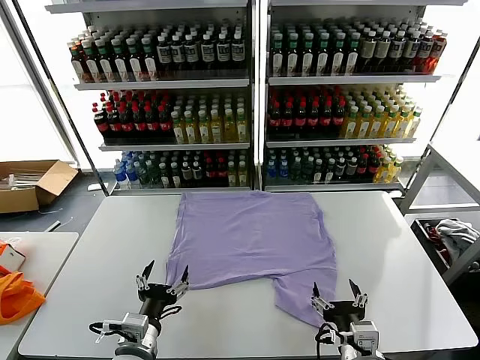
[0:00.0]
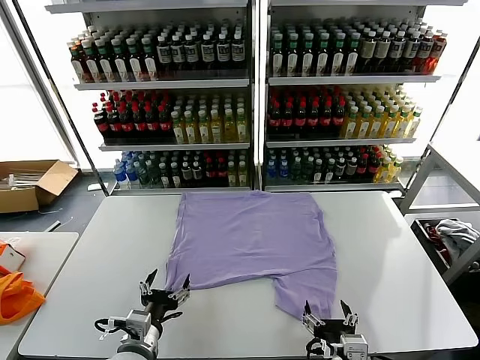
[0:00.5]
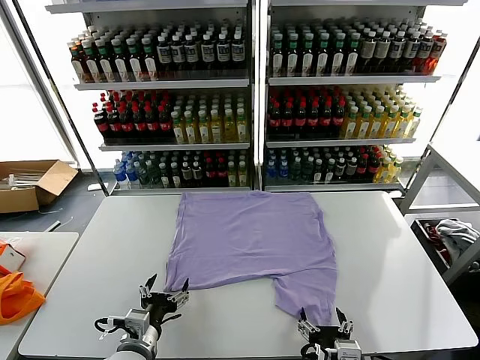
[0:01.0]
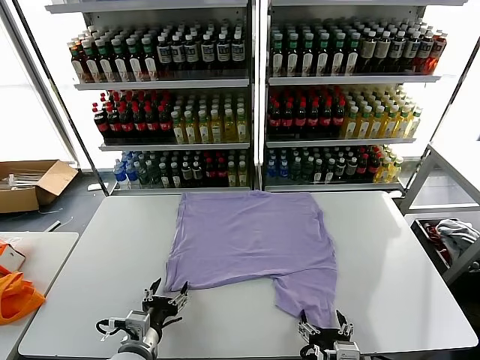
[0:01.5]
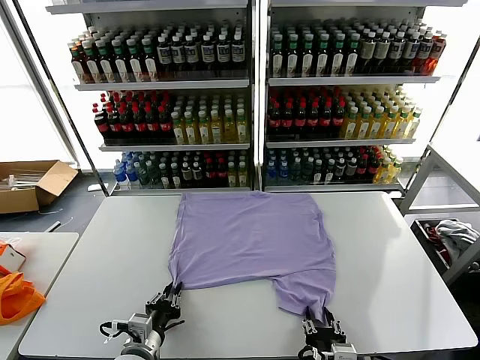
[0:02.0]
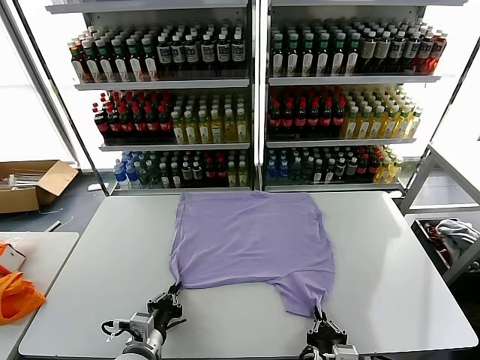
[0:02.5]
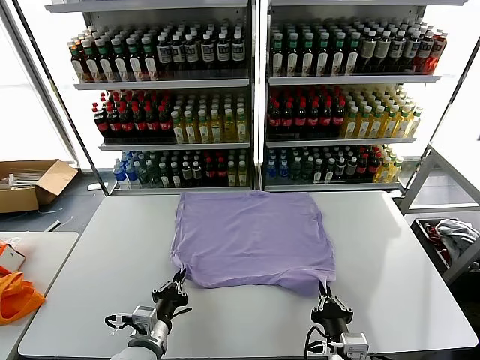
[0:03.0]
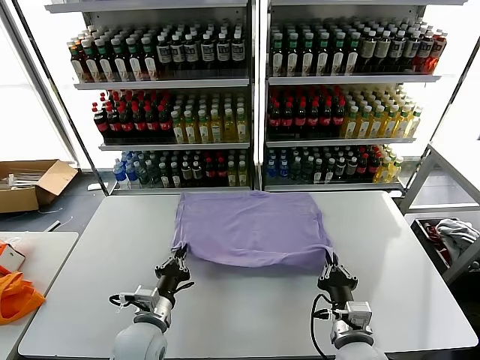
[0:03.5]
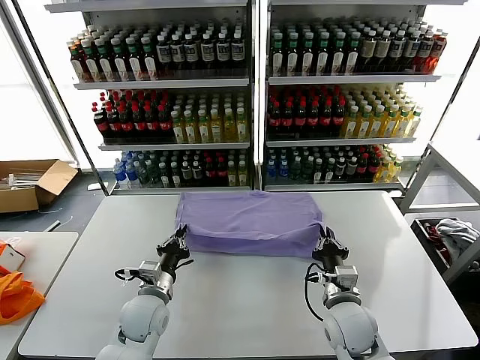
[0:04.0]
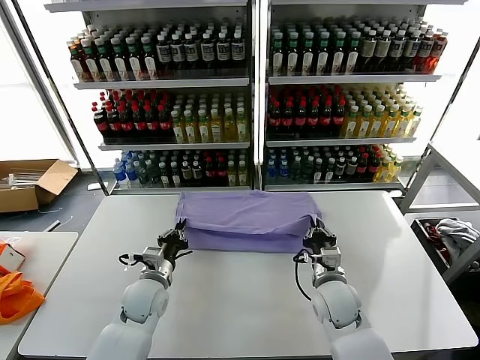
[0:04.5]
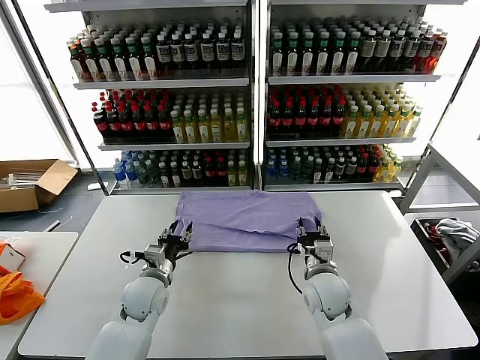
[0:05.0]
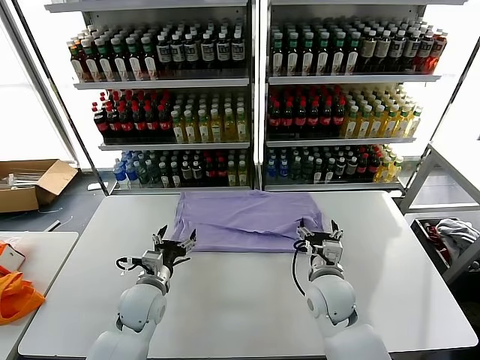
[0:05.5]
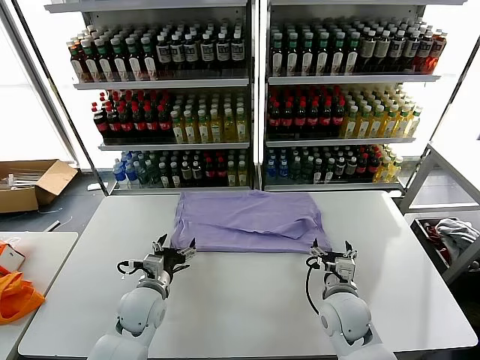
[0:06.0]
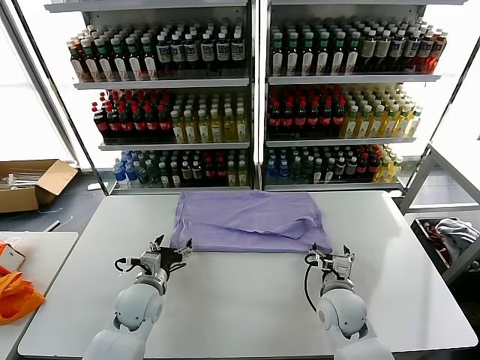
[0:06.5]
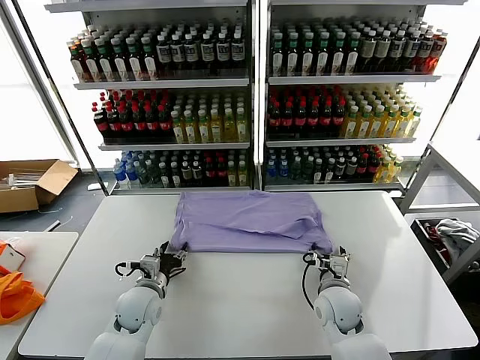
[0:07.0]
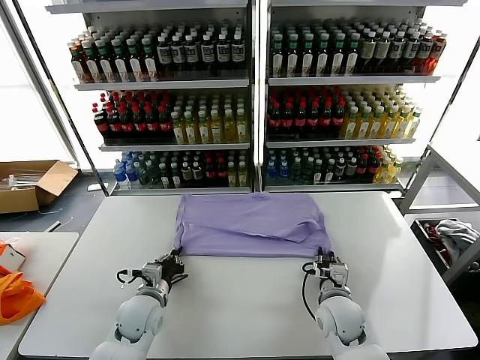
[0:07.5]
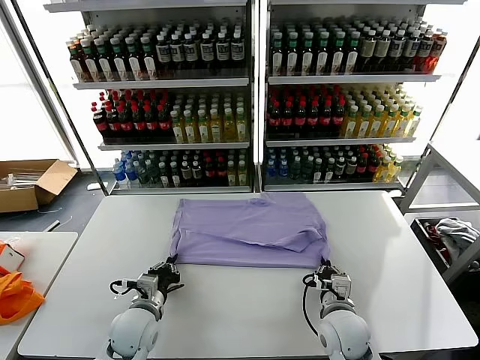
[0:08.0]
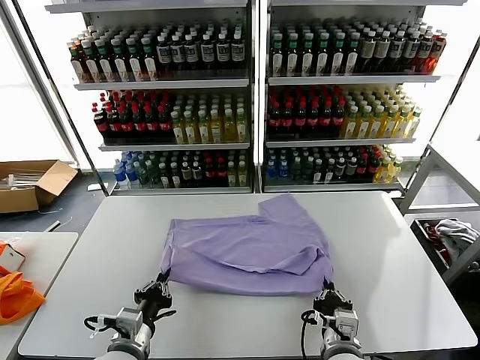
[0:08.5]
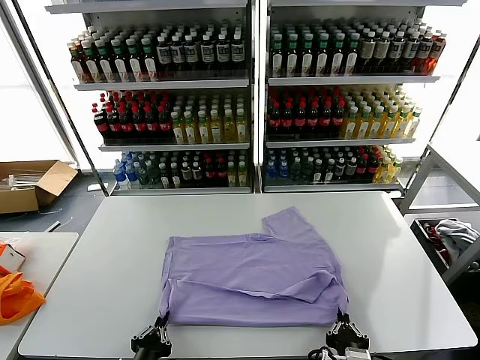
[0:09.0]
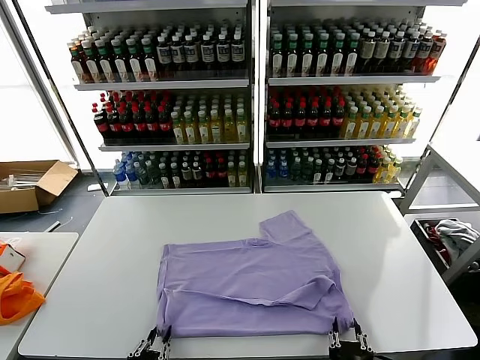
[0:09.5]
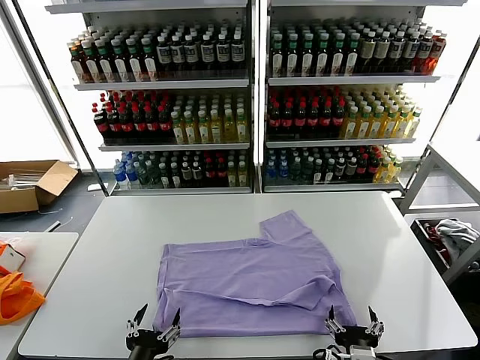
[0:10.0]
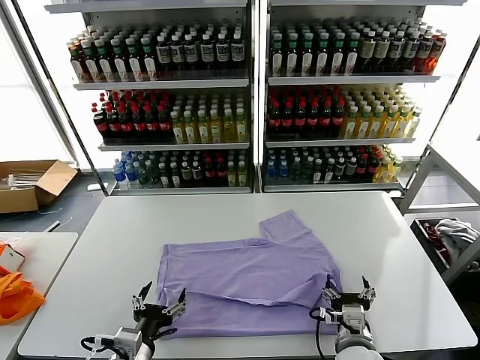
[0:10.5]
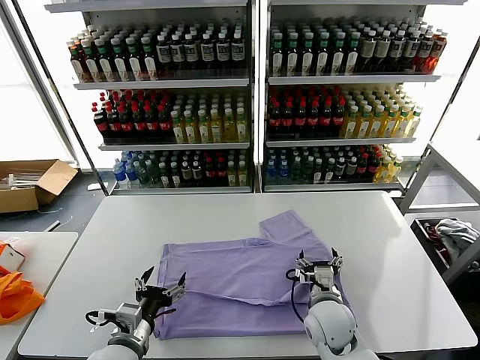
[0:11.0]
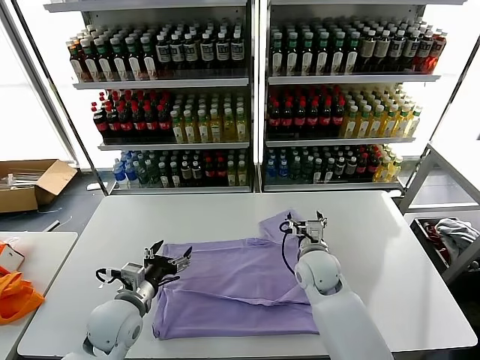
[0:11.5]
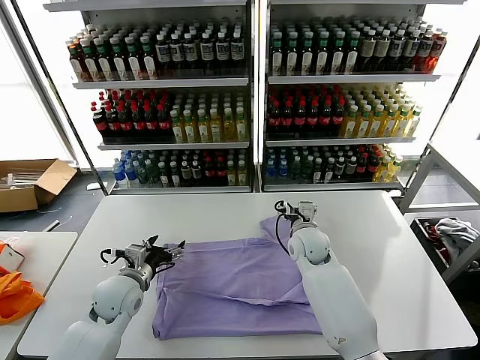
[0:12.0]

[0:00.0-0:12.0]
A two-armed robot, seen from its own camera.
Task of the whole recording: fold and organize the clothes.
Step, 0:00.0 to 0:02.5: use both grippers simultaneously to clamp the lower edge of the clothing fabric.
Step, 0:03.0 to 0:05.0: use both grippers to drag the lower edge of the fabric forward and fold it over the upper edge.
Step, 0:05.5 to 0:09.5: Drag the clothes downward with both gripper.
0:02.0 to 0:04.0: Both grippers travel together forward, roughly 15 cm. The right gripper closes.
0:04.0 to 0:06.0: The left gripper opens its fingers. The right gripper opens up.
0:06.0 to 0:08.0: The left gripper closes up. Meanwhile the right gripper closes.
0:08.0 to 0:10.0: The grippers both shift backward by some 15 cm. The right gripper opens. Meanwhile the left gripper opens its fingers.
0:10.0 to 0:12.0: The two grippers go roughly 30 cm forward.

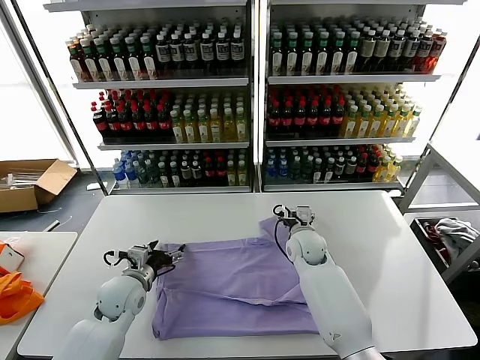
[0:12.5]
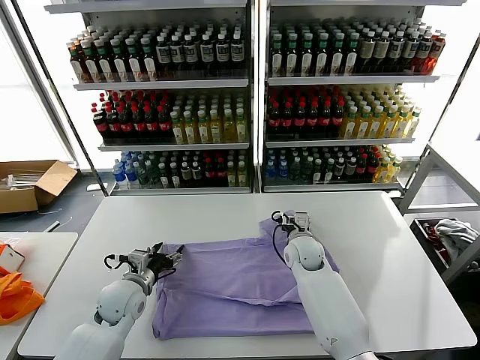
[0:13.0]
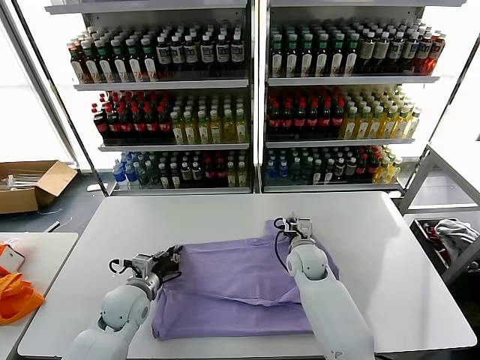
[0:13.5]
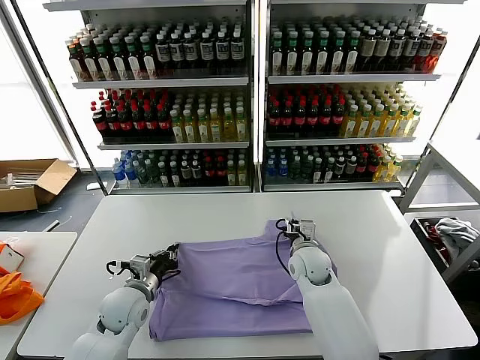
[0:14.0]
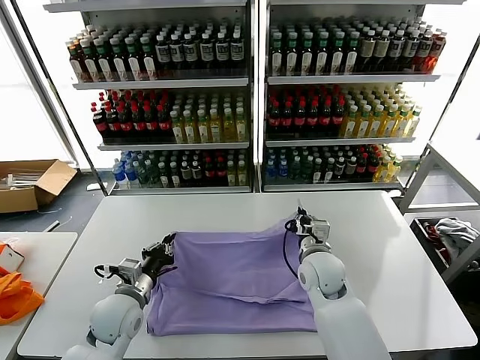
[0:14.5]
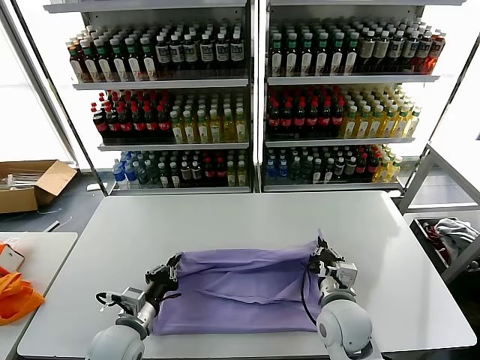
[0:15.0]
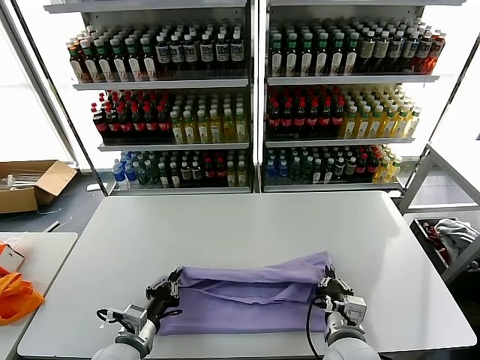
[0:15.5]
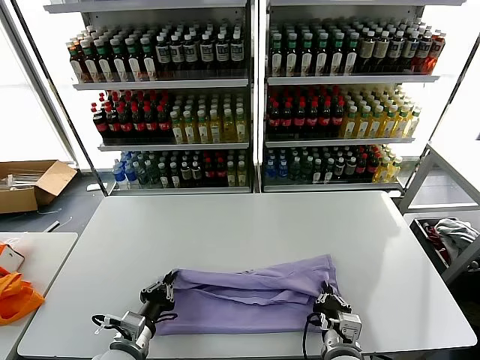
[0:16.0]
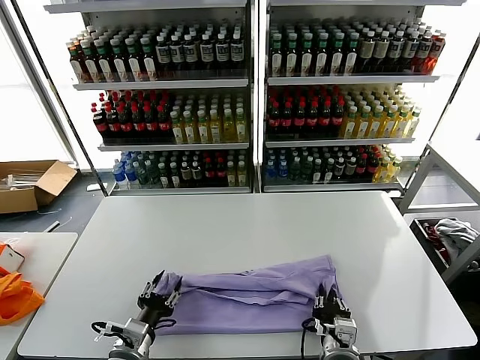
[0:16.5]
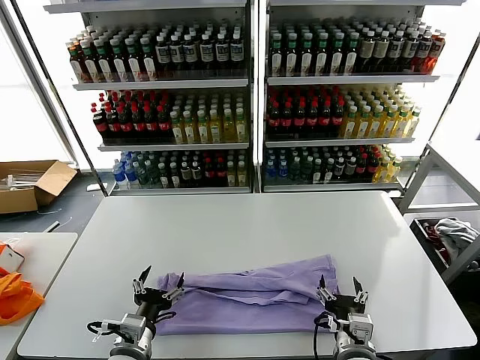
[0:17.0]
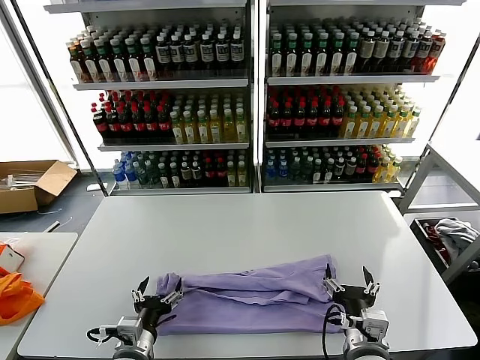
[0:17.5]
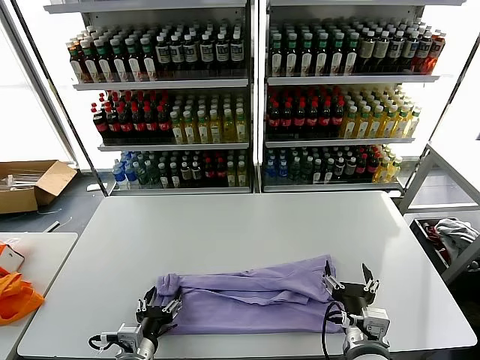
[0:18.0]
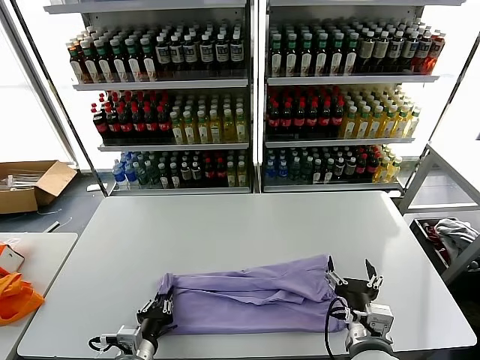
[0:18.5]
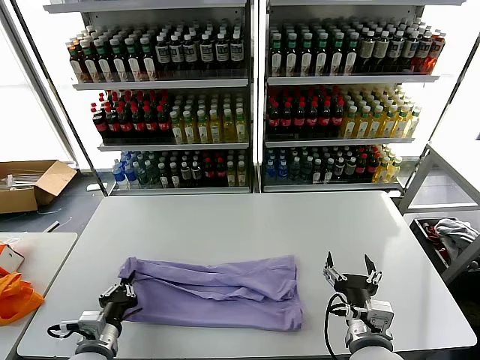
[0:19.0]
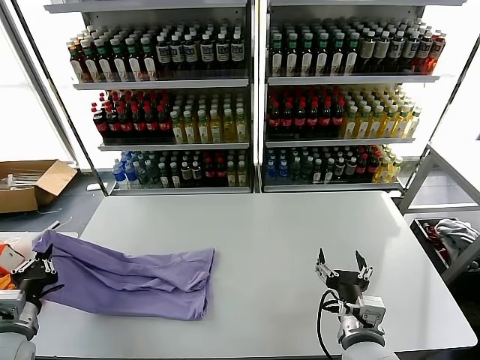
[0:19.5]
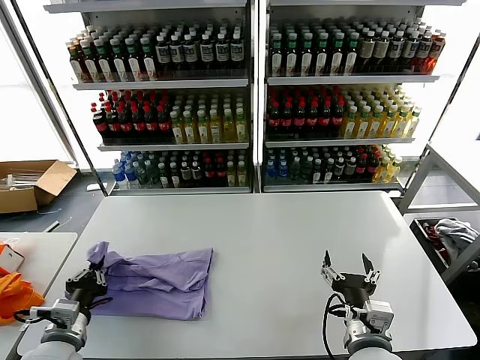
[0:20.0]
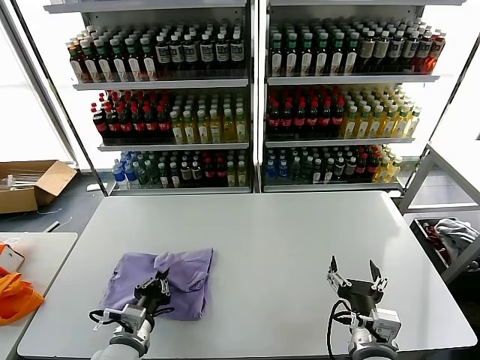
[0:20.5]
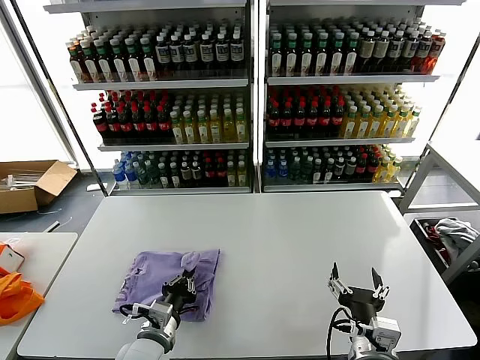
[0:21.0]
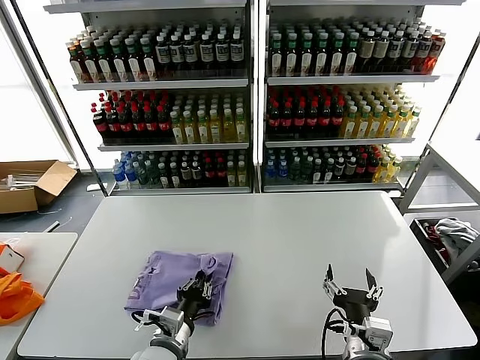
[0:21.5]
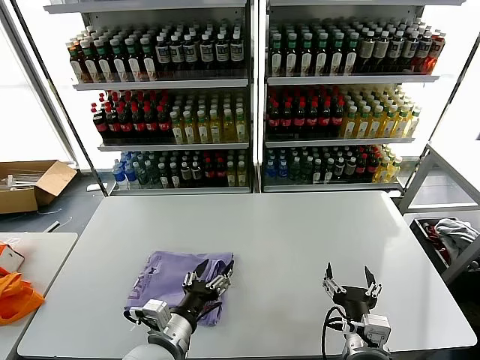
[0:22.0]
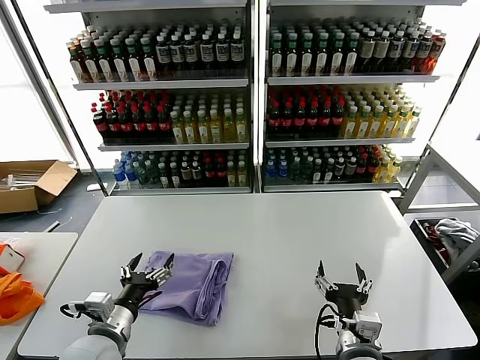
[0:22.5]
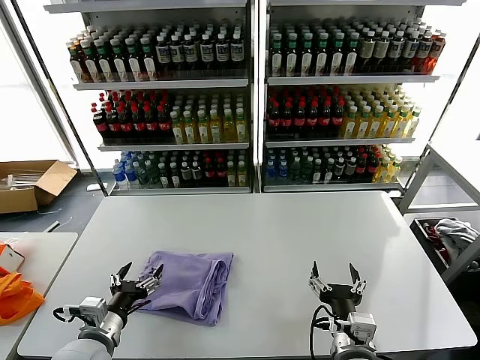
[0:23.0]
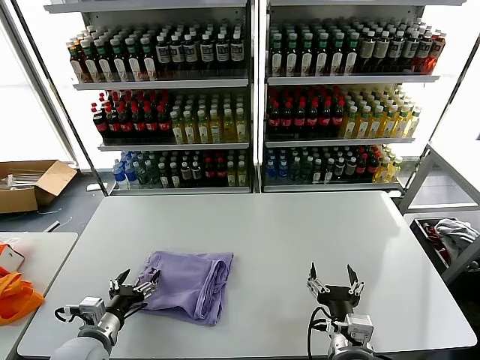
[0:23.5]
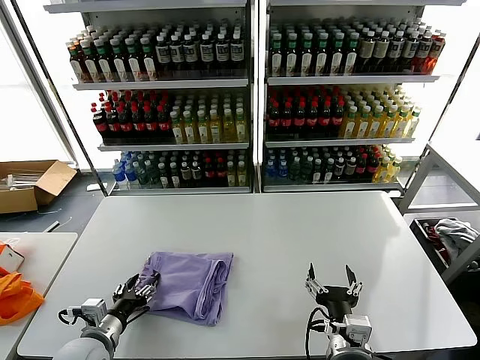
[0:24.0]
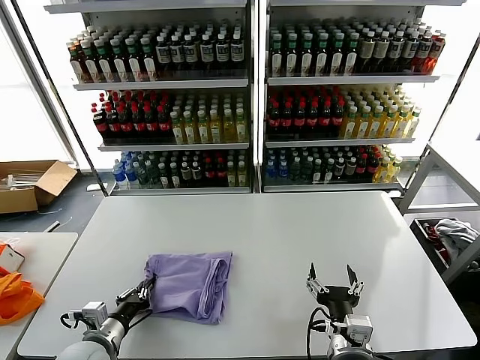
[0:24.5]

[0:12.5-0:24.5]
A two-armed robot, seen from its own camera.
Task of the whole recording: fold and organize the clothes.
Step, 0:14.5 to 0:17.0: use both grippers to drag the upper edge of the fabric backward and fold it over the lower edge.
Step, 0:17.5 to 0:18.5: use the left gripper to clamp the left edge of the fabric.
Step, 0:19.0 to 0:21.5: use the left gripper to drag the left edge of the fabric to the left and folds it over the right edge.
0:12.5 to 0:14.5: The right gripper travels backward by roughly 10 cm, and closes up. The left gripper closes up.
0:14.5 to 0:16.5: The right gripper shifts roughly 20 cm backward. The left gripper goes approximately 10 cm backward, and opens its fingers.
0:16.5 to 0:18.5: The left gripper opens, then closes once more, while the right gripper moves upward, some 5 cm, and opens up.
0:18.5 to 0:20.5: The left gripper moves approximately 20 cm to the left and comes back.
0:20.5 to 0:22.5: The left gripper moves roughly 10 cm to the right and comes back, and opens up.
0:22.5 to 0:24.5: The left gripper heads downward and to the left, covering roughly 10 cm, and closes its fingers.

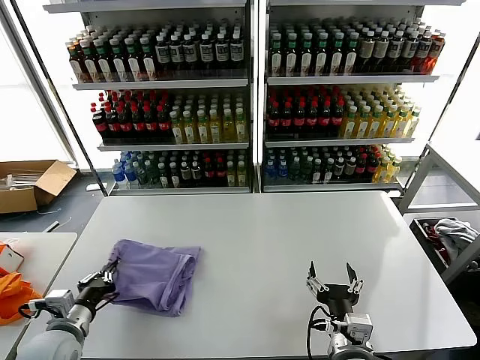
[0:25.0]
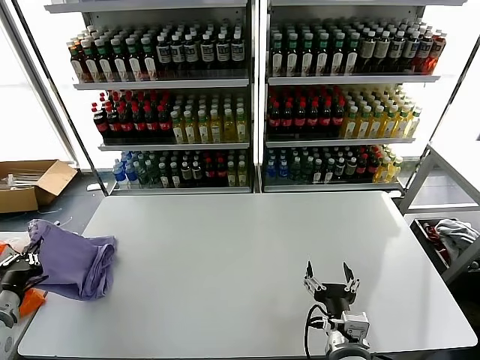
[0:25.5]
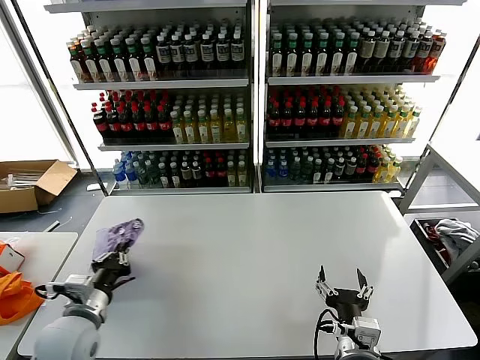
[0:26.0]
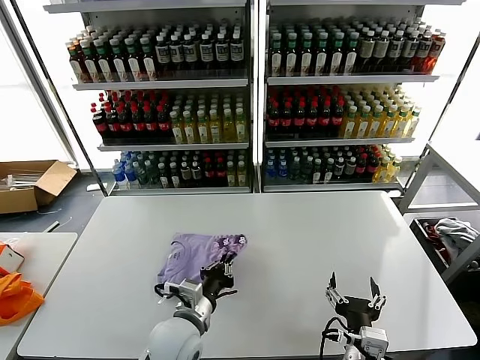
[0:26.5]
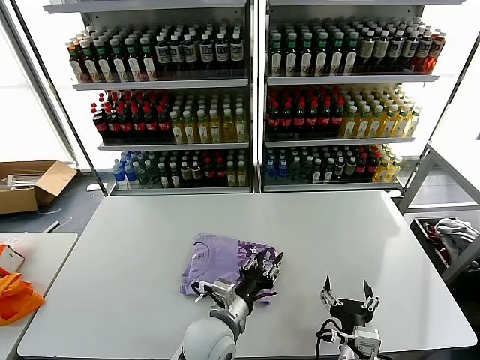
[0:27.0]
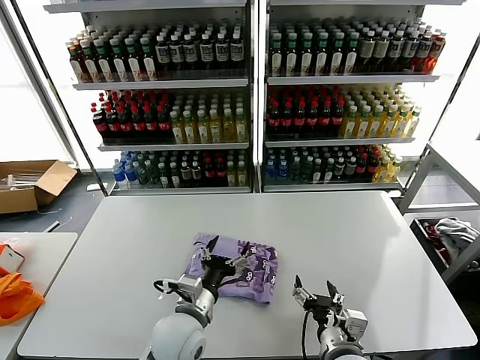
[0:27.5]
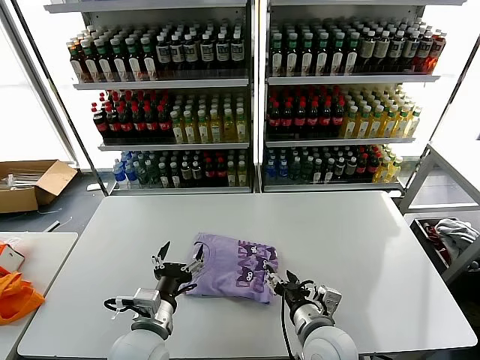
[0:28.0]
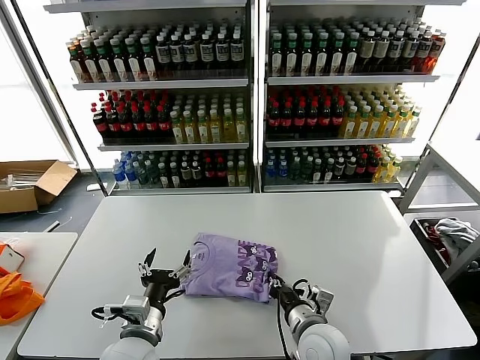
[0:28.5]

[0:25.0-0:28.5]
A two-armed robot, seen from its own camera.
Task of the whole recording: fold and organize the clothes.
Step, 0:25.0 to 0:27.0: Flip the folded clothes over with left gripper.
0:25.0 to 0:27.0: The left gripper travels to the right by roughly 30 cm.
0:27.0 to 0:28.5: The left gripper goes roughly 15 cm to the left, and opens; the right gripper moves forward, about 10 cm, and closes.
